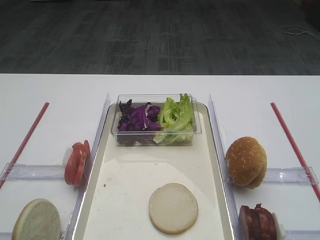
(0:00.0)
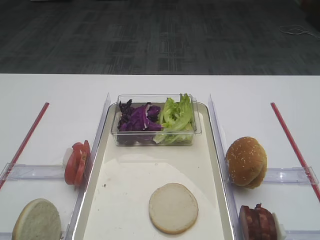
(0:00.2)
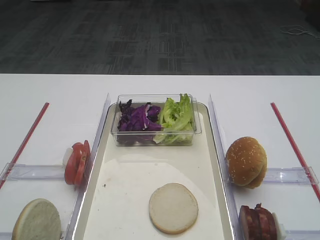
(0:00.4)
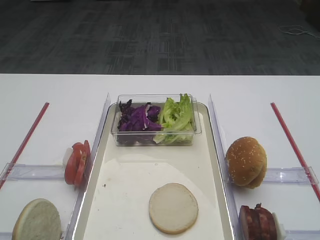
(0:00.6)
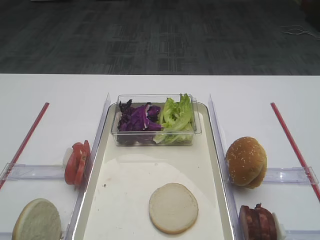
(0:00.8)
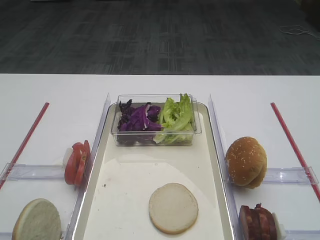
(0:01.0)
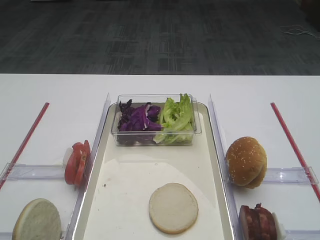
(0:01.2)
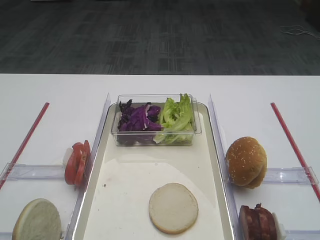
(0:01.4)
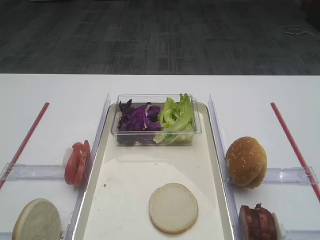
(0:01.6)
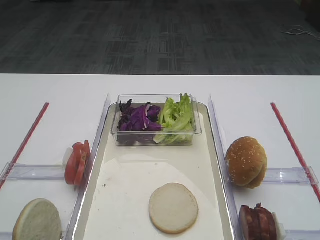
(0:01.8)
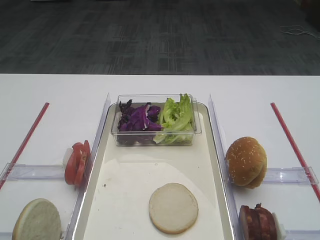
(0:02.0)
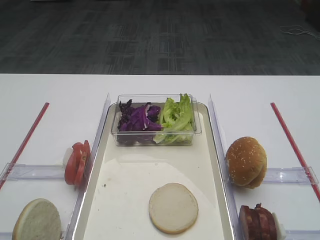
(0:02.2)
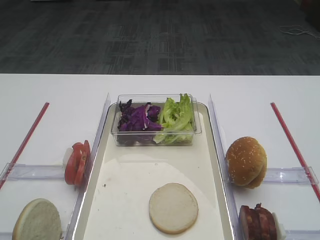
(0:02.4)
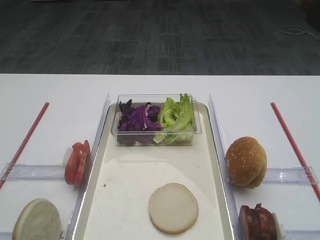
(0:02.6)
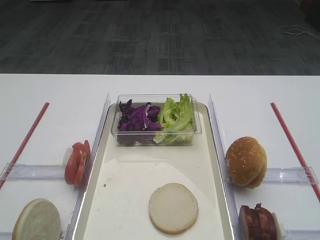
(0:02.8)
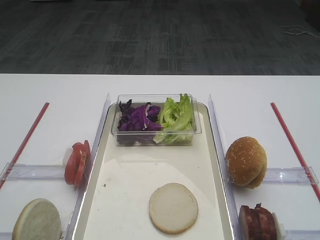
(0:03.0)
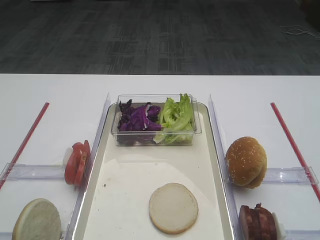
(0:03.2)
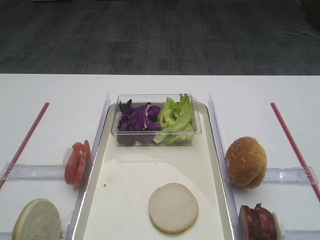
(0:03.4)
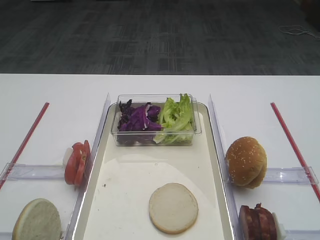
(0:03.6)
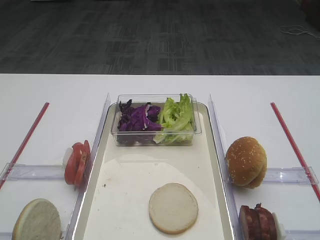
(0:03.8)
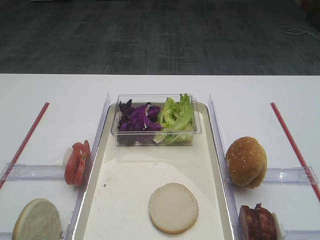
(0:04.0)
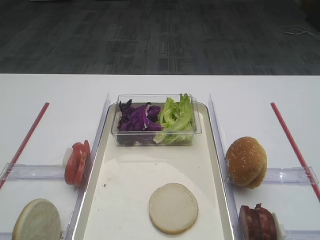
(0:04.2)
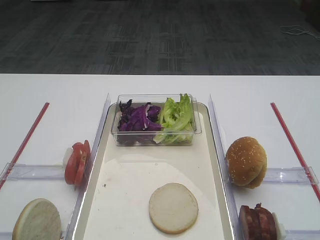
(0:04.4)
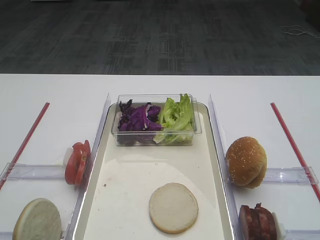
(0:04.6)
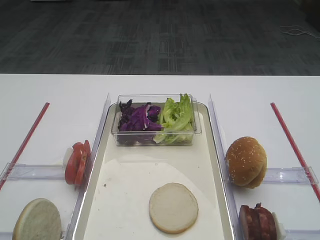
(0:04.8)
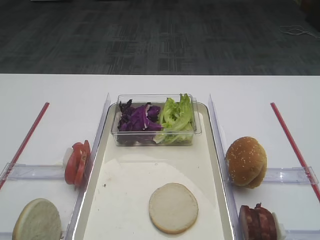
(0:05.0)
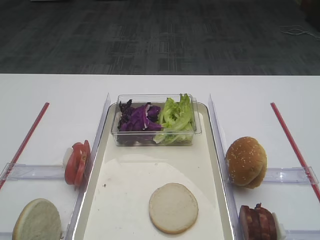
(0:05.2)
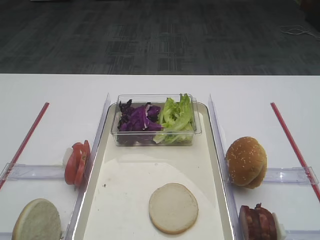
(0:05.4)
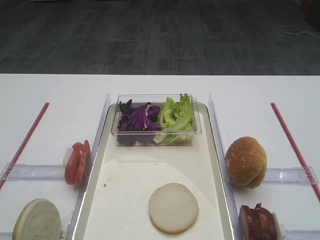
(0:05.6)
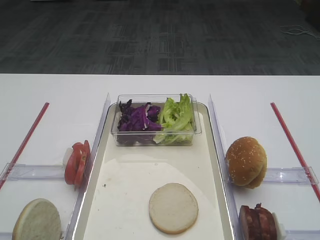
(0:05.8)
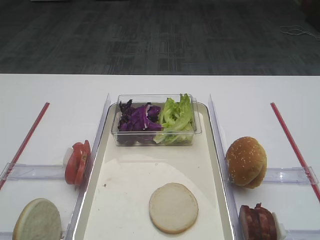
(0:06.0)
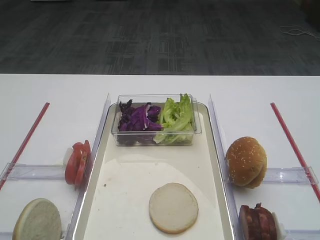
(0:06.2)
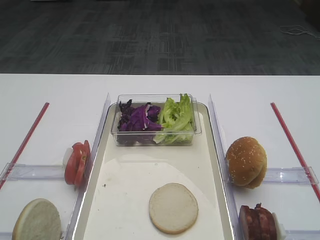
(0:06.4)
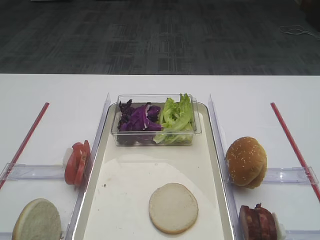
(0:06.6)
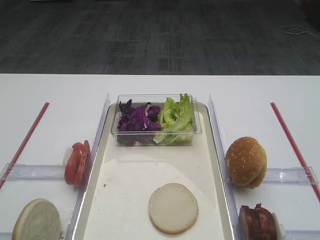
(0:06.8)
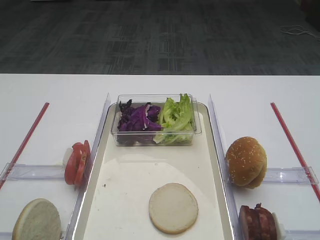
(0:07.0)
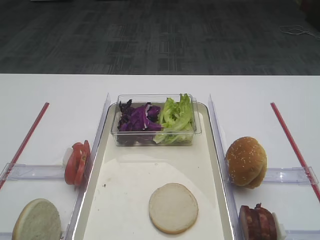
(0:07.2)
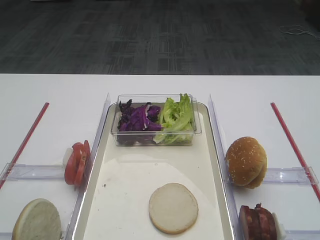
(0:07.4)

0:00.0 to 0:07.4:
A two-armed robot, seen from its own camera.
0:03.0 to 0:07.4: Neither gripper changes place.

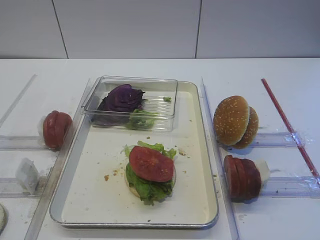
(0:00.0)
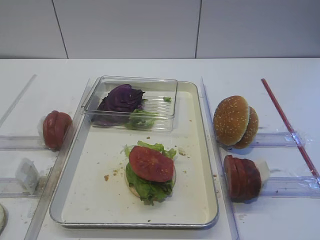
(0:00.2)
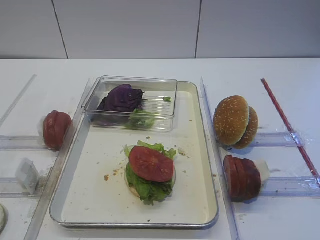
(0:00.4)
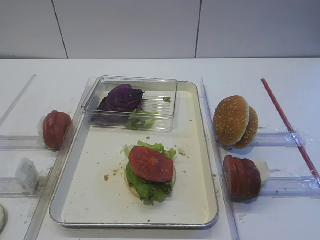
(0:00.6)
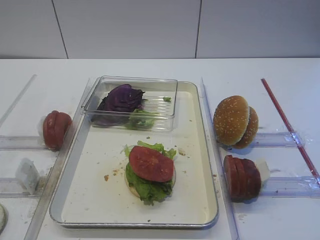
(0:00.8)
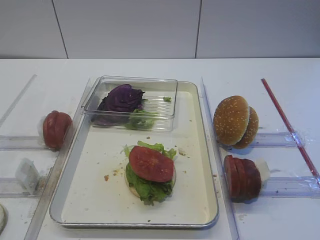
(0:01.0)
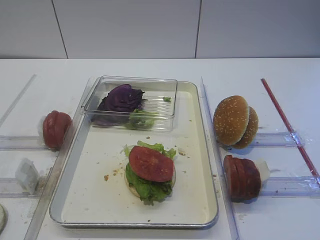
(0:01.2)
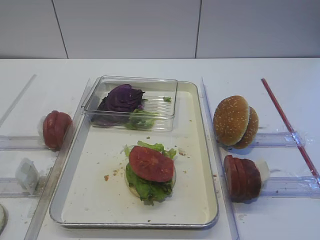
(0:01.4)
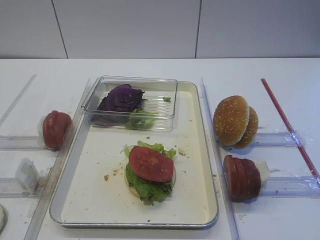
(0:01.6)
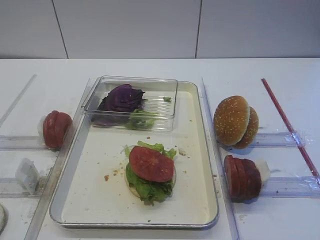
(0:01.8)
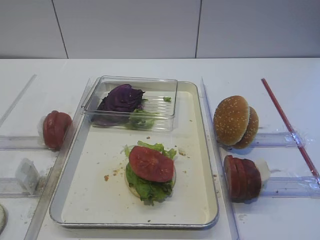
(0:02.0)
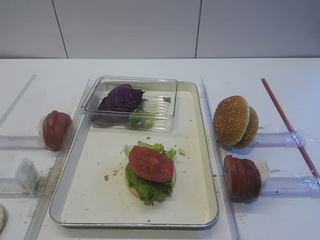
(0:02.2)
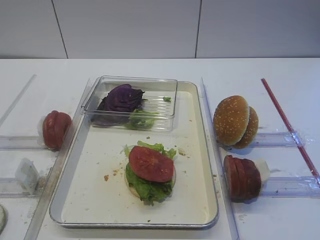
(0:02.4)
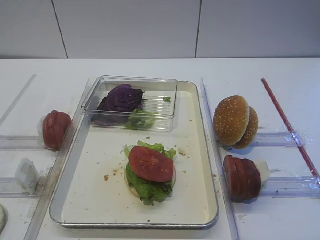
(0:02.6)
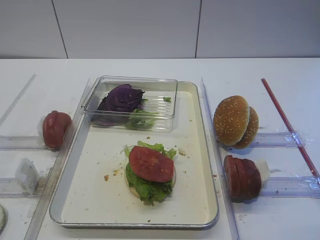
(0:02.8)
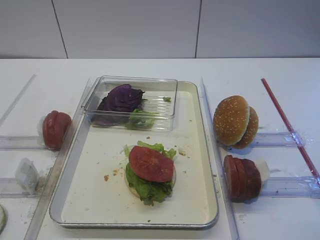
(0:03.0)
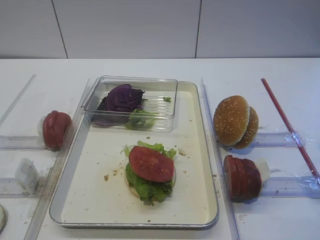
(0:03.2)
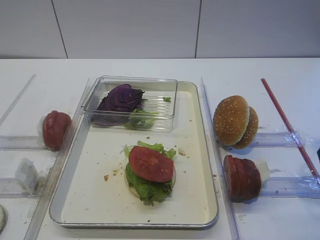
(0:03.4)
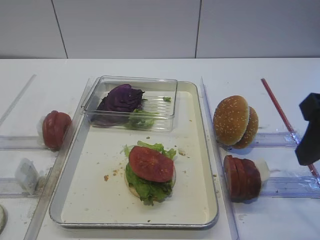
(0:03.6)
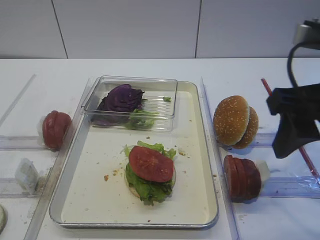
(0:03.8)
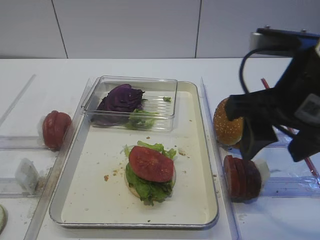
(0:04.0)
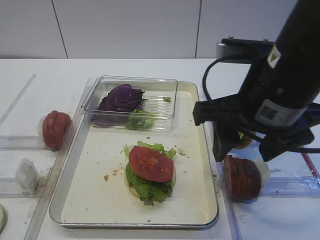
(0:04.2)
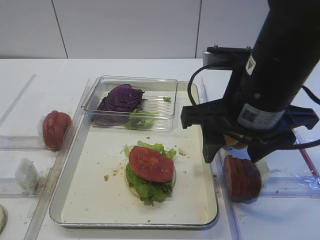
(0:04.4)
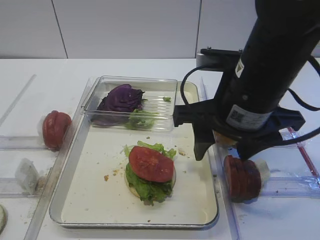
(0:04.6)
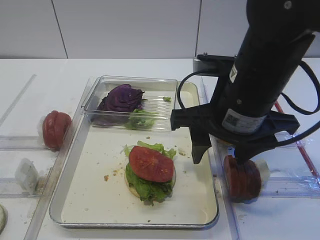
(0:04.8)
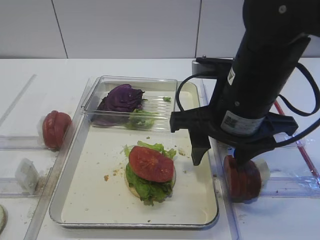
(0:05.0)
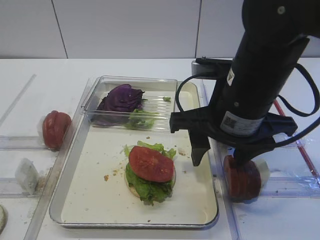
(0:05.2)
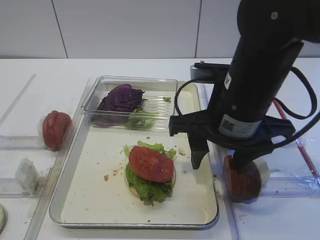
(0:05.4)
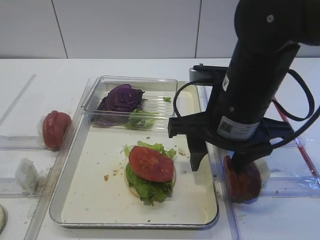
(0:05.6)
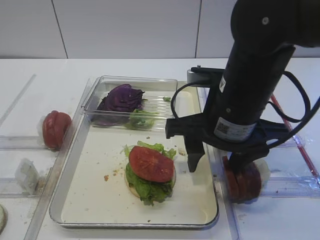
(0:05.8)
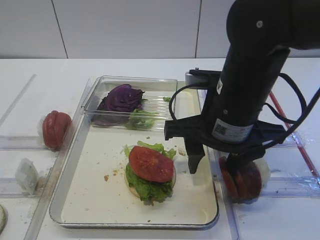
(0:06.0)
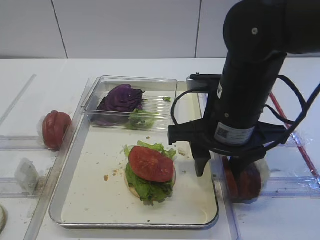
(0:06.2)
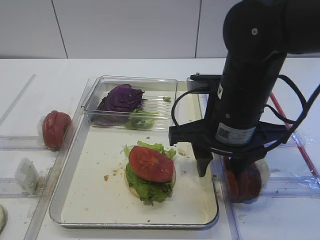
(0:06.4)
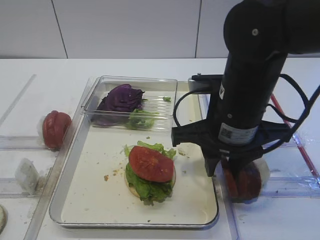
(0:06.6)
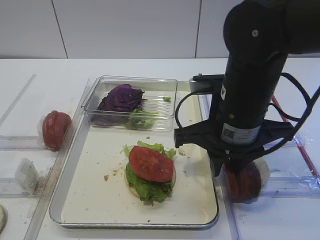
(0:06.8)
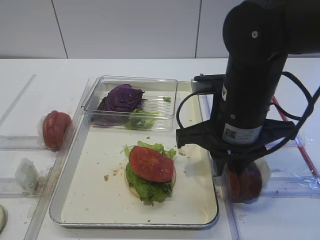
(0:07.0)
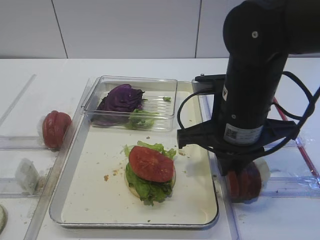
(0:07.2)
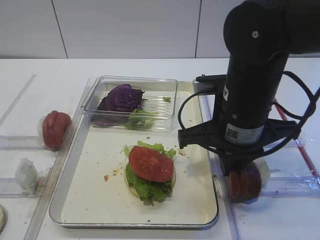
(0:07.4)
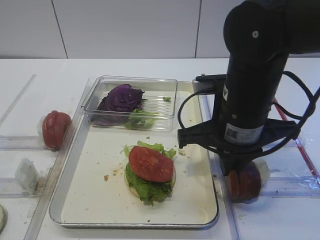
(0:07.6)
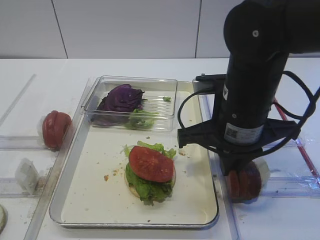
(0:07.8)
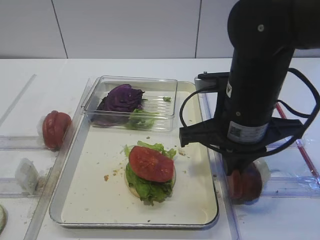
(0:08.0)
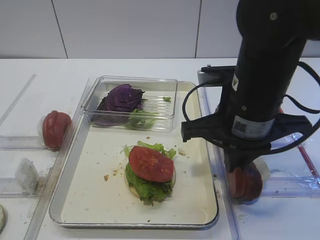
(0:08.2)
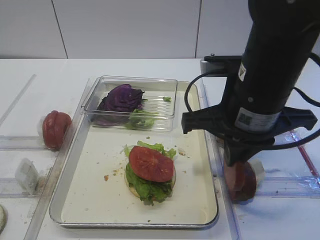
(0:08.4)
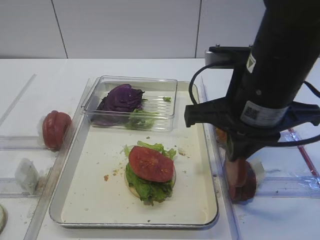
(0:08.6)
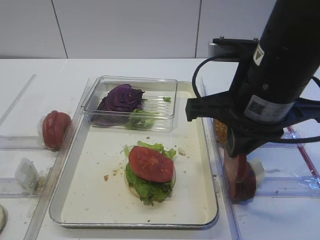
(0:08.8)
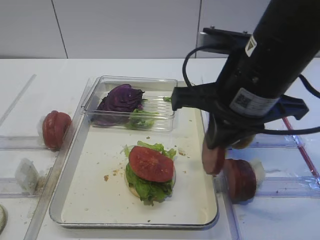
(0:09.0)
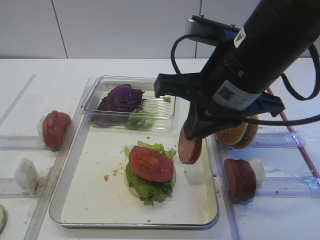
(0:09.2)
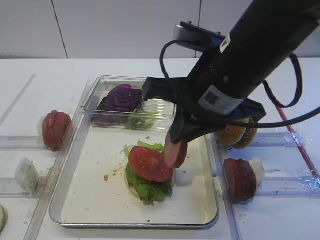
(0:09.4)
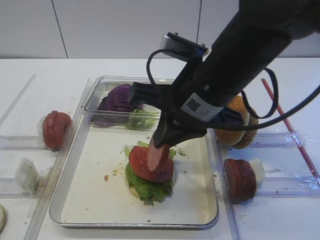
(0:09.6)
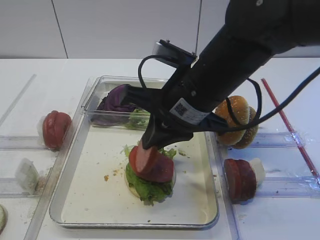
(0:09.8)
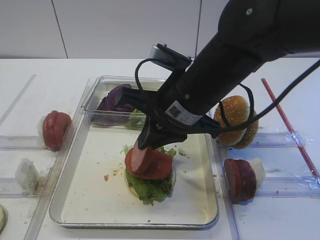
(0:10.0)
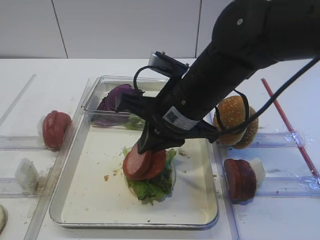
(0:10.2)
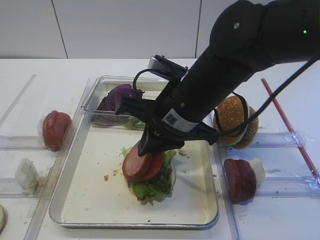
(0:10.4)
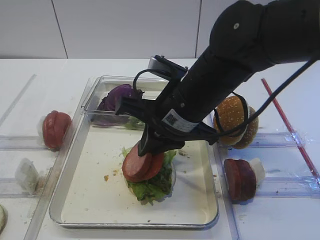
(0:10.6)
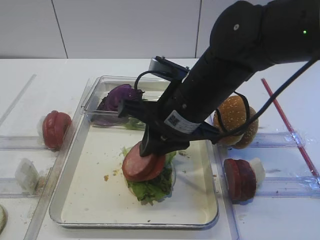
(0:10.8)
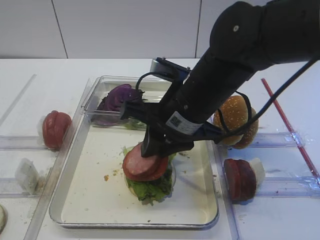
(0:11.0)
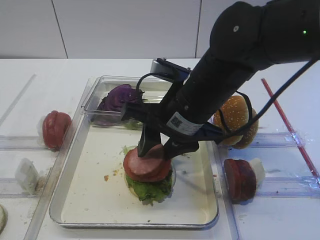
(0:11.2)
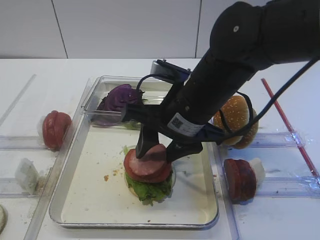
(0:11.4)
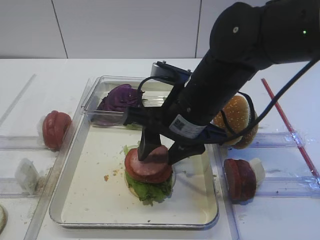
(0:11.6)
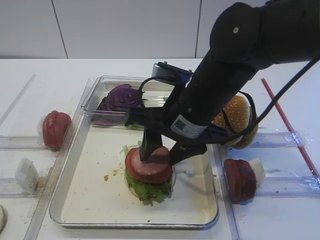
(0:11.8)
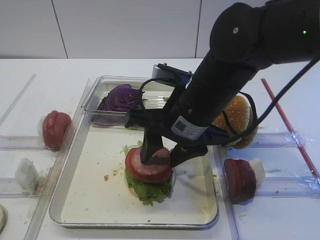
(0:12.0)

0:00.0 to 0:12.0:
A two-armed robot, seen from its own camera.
Step, 0:00.0 to 0:08.6: Pick up the cutlet with the right gripper.
0:03.0 to 0:04.4: The right gripper goes some 15 cm to the left and forward.
0:04.4 to 0:06.0: The grippers make only small movements.
0:06.0 to 0:07.6: The right gripper closes.
0:07.6 to 0:09.0: The right gripper moves upward, some 5 cm.
0:09.0 to 0:10.4: The right gripper goes about 10 cm downward and to the left.
0:10.4 to 0:12.0: The right gripper opens up.

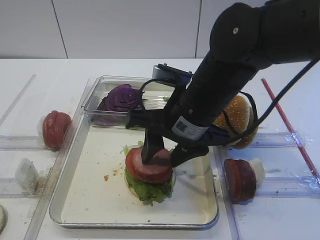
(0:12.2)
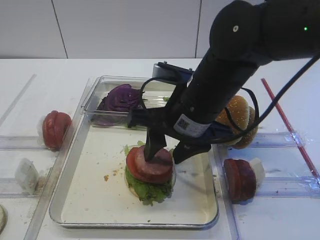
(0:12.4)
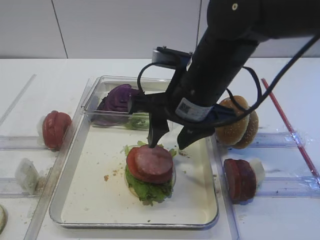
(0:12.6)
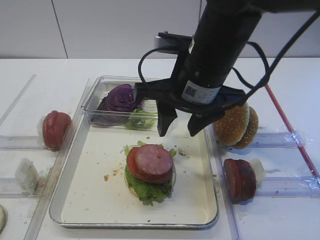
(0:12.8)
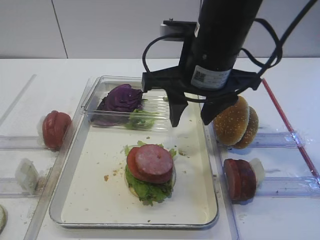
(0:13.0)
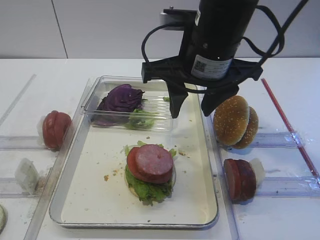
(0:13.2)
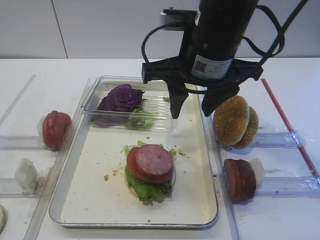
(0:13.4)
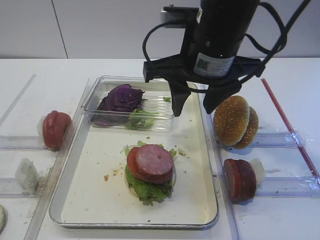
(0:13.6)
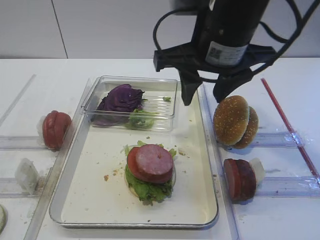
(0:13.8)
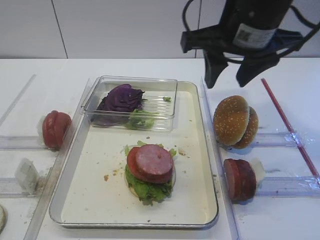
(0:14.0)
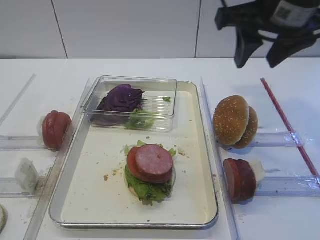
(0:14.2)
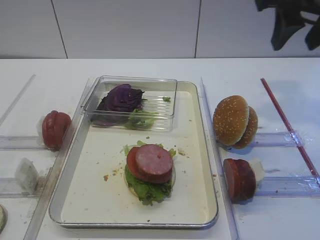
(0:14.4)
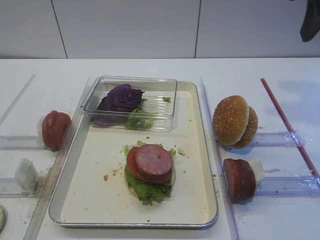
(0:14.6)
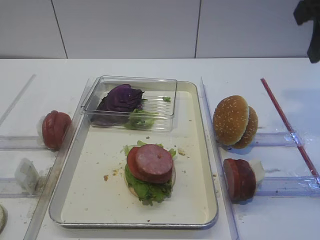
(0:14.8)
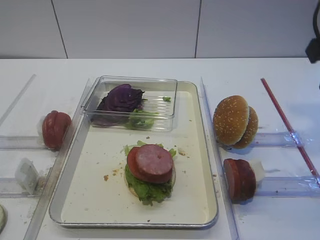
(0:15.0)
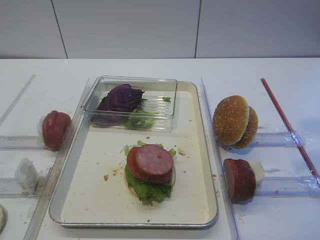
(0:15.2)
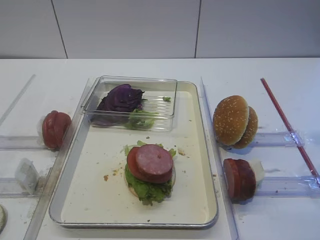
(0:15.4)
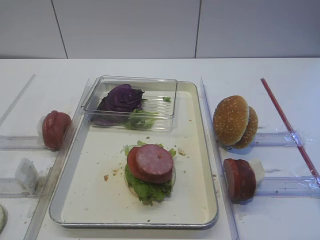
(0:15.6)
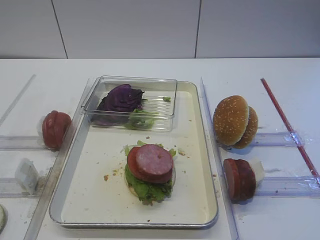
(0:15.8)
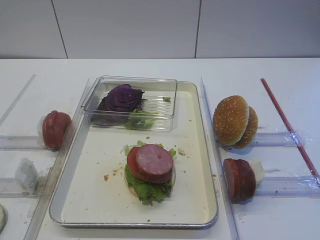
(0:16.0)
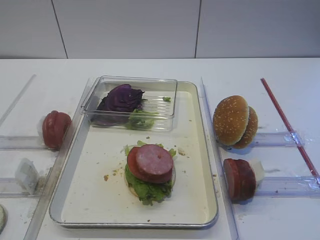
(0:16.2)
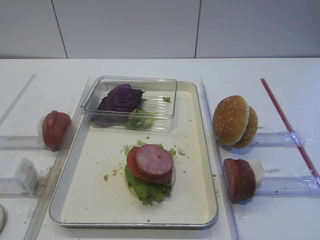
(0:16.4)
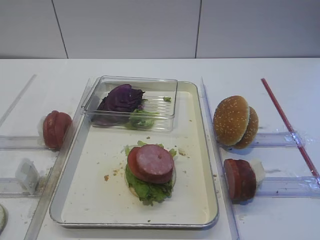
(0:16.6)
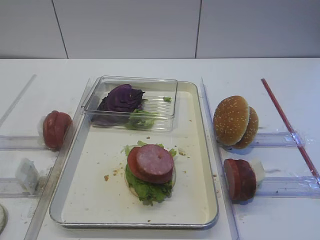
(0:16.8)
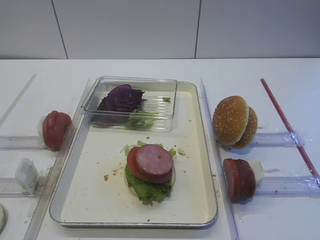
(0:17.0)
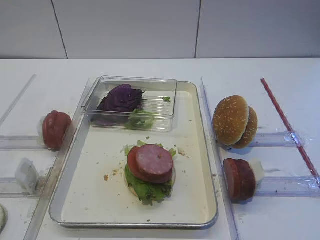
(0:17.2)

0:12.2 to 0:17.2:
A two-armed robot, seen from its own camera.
0:12.2 to 0:13.8: The right gripper goes some 10 cm upward.
0:13.8 to 0:15.6: The right gripper shifts roughly 25 cm to the right and backward.
